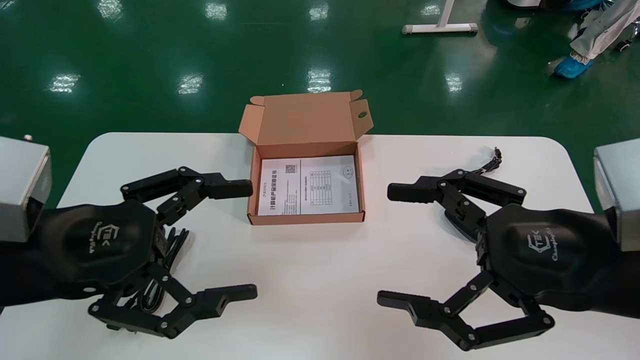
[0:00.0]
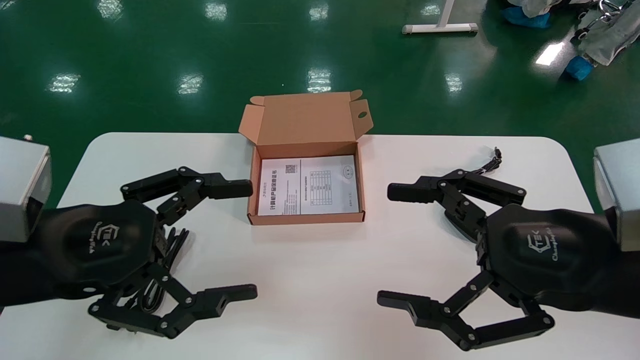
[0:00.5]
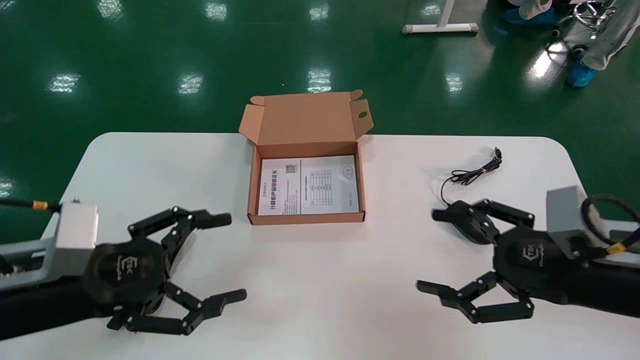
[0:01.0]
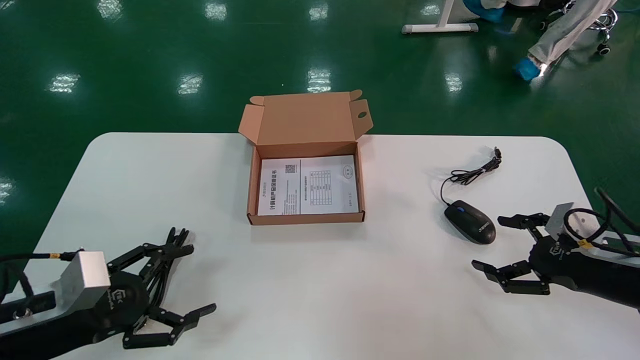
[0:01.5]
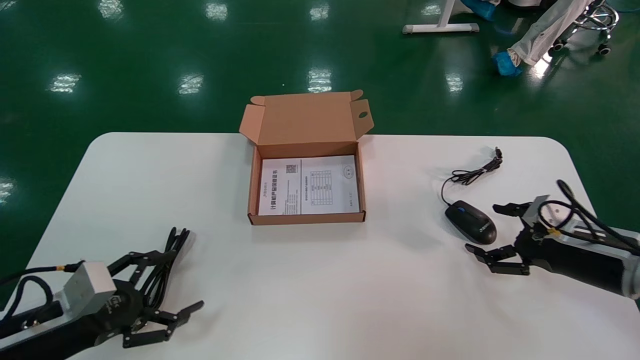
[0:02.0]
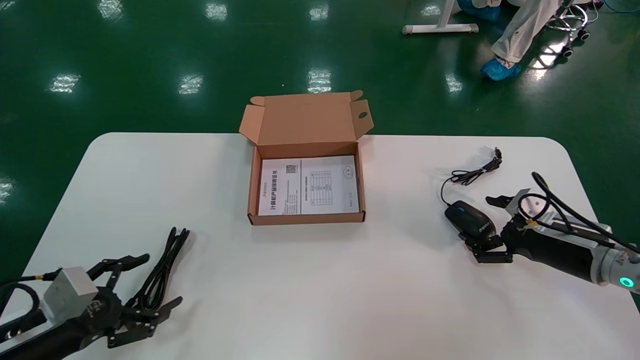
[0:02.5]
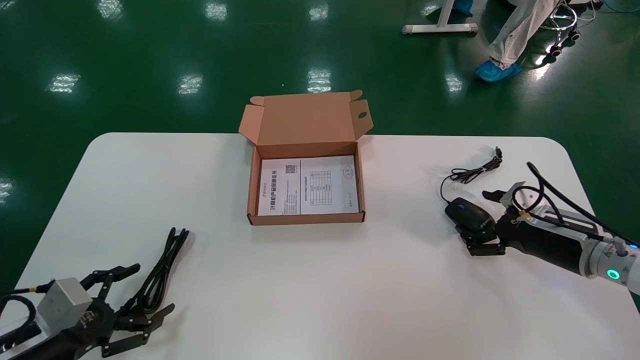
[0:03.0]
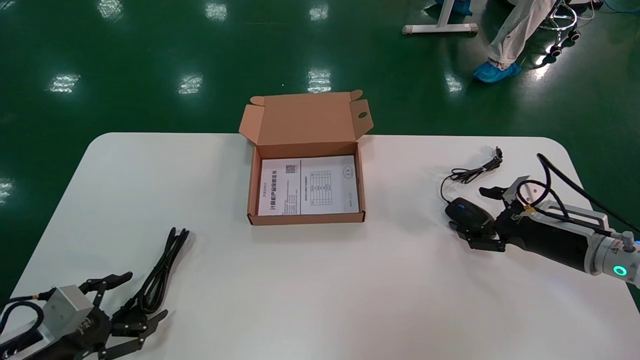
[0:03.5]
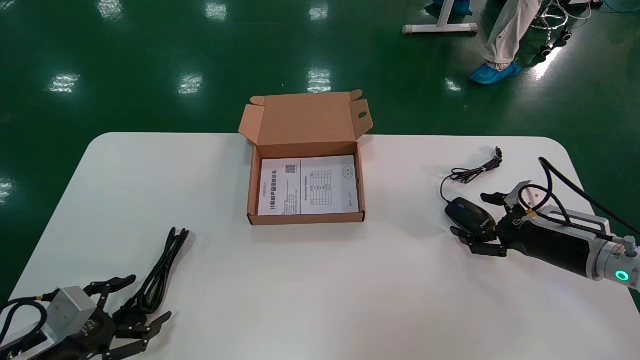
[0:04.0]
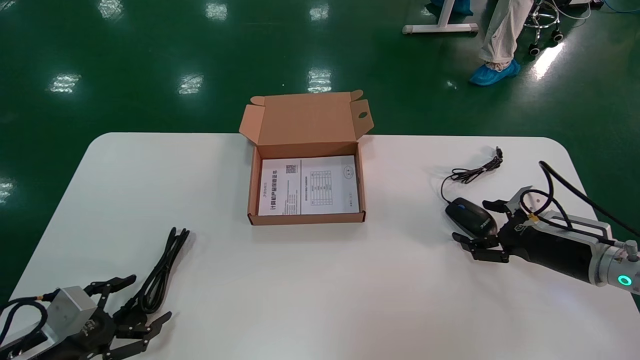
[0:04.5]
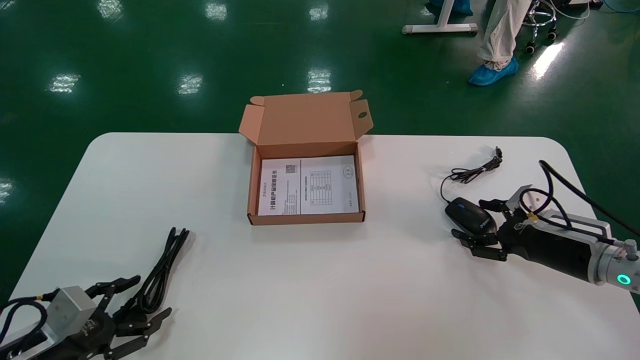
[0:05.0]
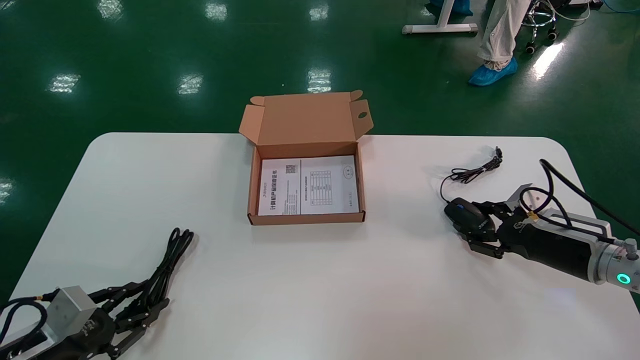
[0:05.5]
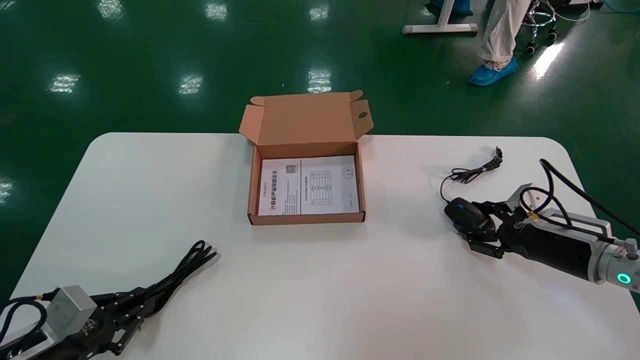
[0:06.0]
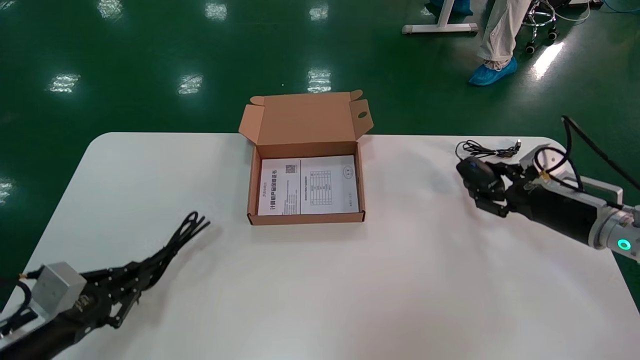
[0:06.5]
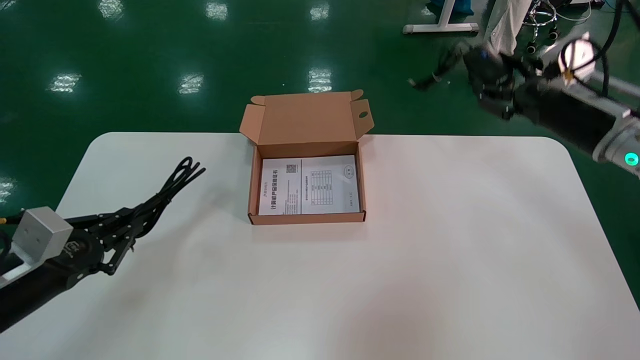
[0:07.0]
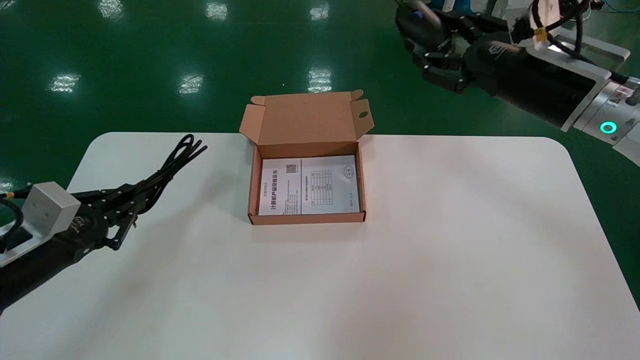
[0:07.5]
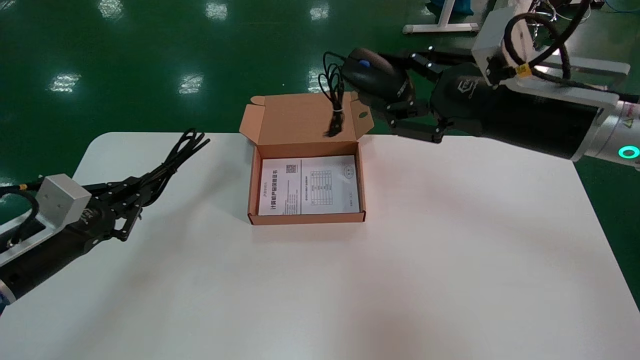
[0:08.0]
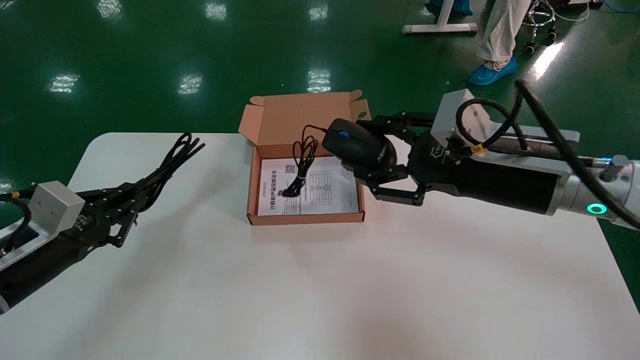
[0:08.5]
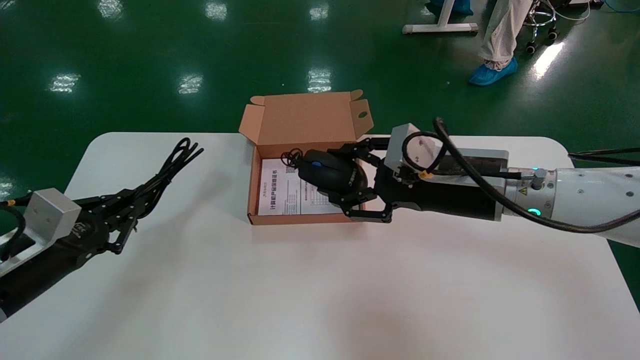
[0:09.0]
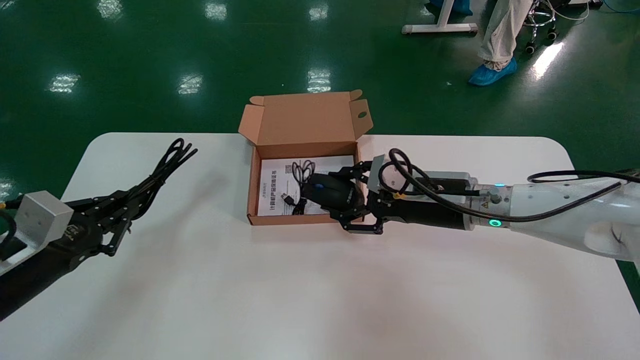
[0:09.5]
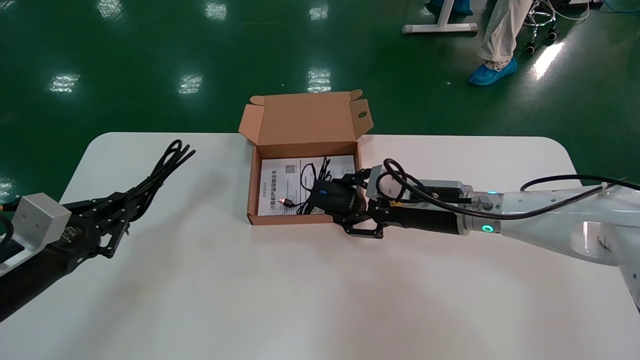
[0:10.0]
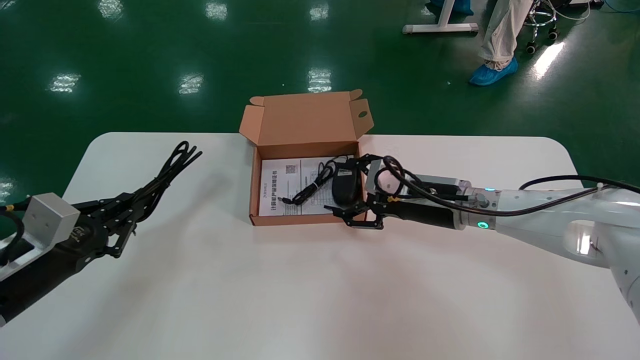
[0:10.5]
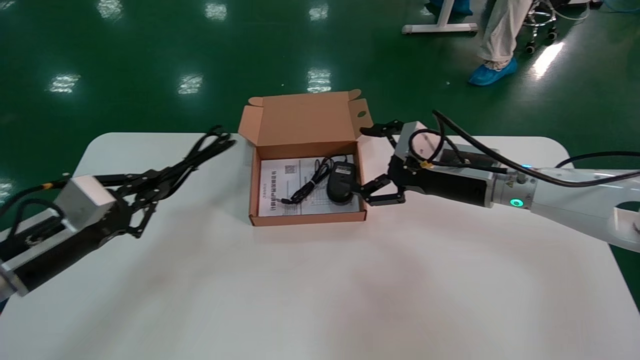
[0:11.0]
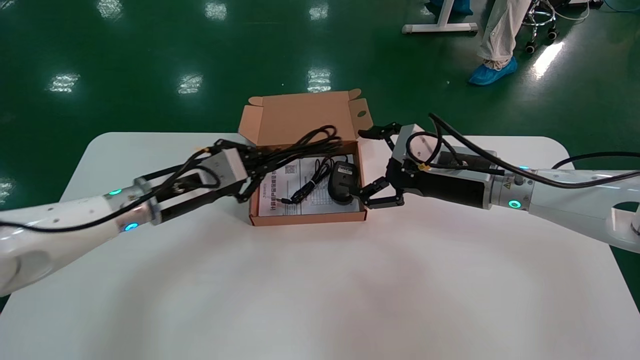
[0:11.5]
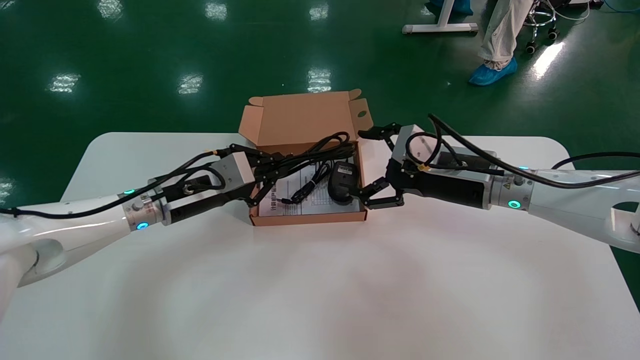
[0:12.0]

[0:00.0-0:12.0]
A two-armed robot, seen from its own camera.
Step, 0:01.5 to 0:05.5: Grab and pick up the mouse and power cord from the accessory packaging area.
0:00.0 to 0:02.0: The left gripper shifts roughly 20 cm downward and to the left; the right gripper heads forward, to the right and downward, covering approximately 25 cm.
0:02.0 to 0:04.0: The left gripper goes roughly 5 cm downward.
0:04.0 to 0:06.0: The right gripper closes. The left gripper closes its fingers.
0:06.0 to 0:08.0: The right gripper travels upward and to the left by roughly 25 cm. Meanwhile the left gripper goes approximately 15 cm upward.
0:08.0 to 0:10.0: The right gripper heads downward, forward and to the left, covering approximately 20 cm.
0:10.0 to 0:12.0: The left gripper shifts some 20 cm to the right and forward, while the right gripper opens its fingers.

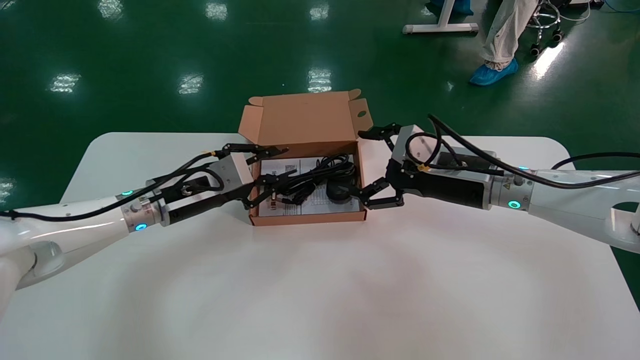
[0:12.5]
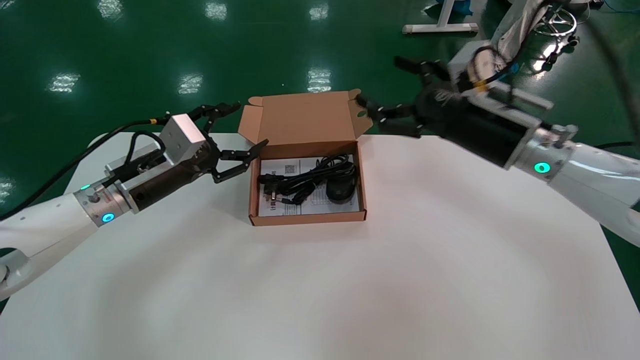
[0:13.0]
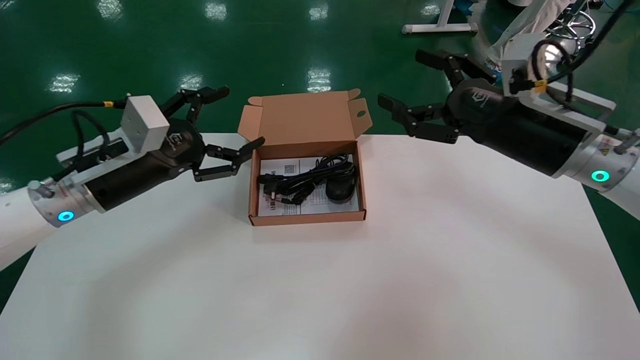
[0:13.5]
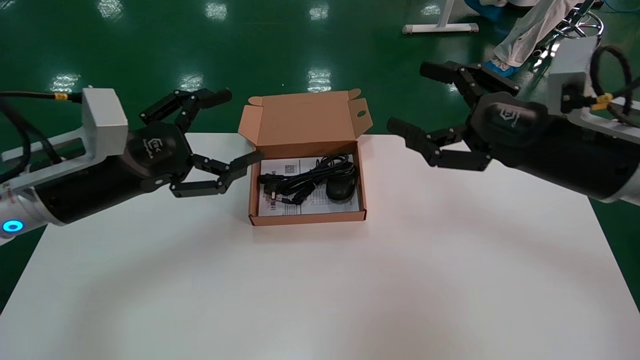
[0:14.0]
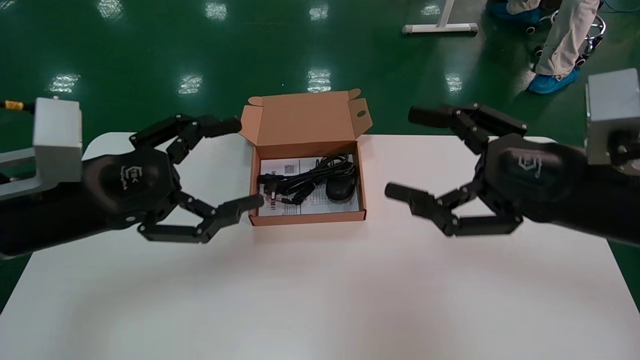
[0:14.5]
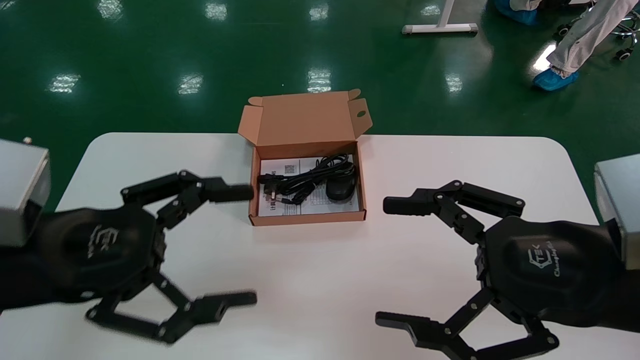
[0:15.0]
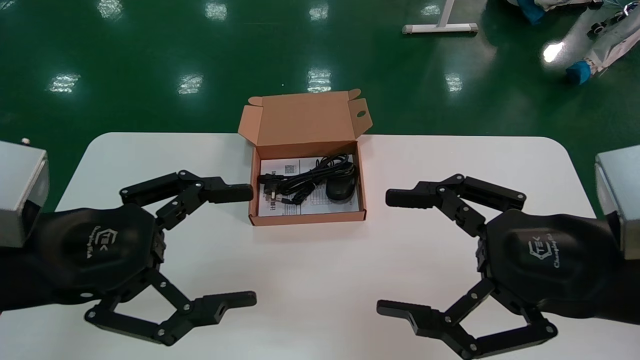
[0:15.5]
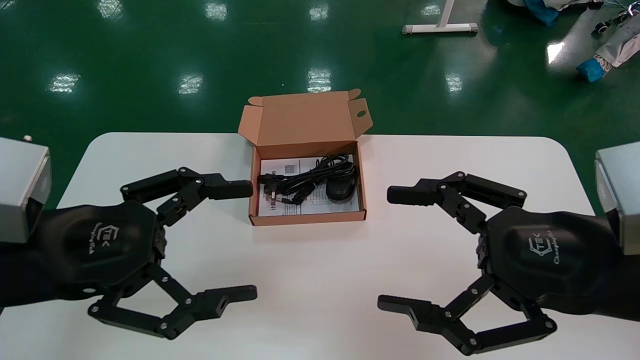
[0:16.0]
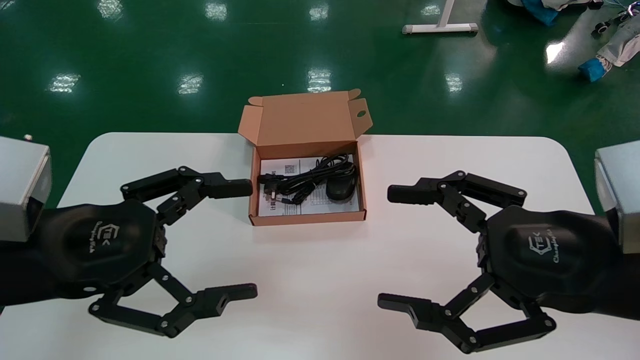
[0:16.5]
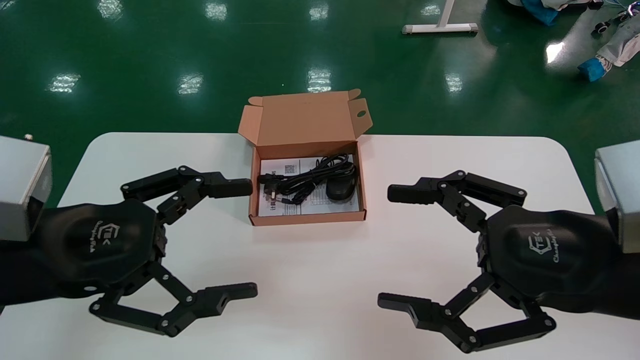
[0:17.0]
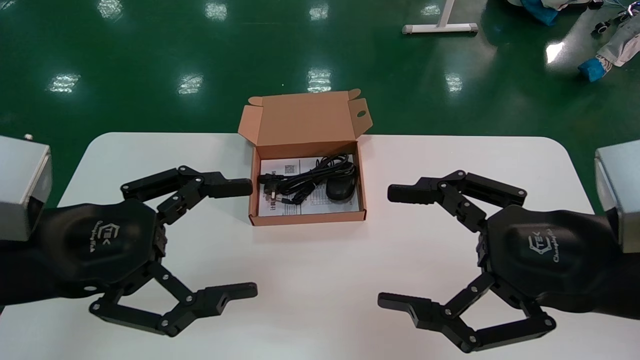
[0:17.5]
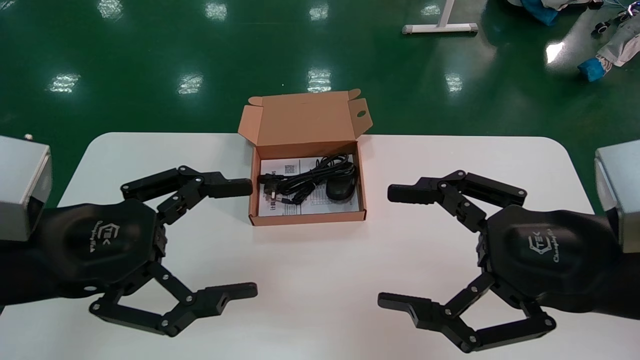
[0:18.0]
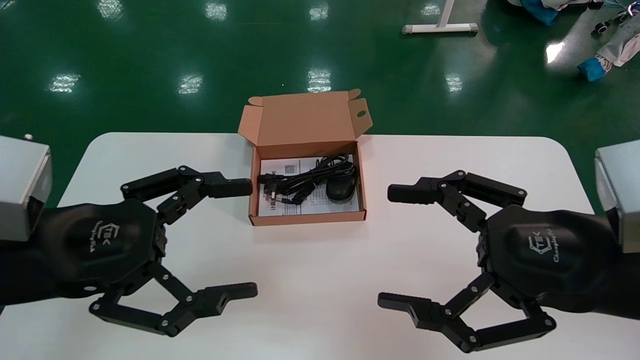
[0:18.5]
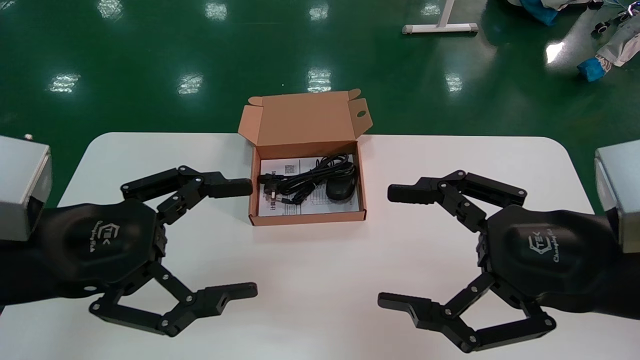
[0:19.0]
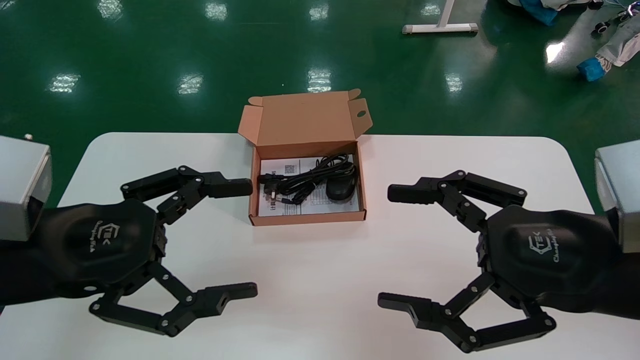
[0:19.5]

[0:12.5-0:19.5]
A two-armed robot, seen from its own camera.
0:12.5 to 0:14.5: Both grippers move backward, some 15 cm. The left gripper opens.
0:14.5 to 0:16.0: Both grippers travel together backward, approximately 5 cm.
0:16.0 to 0:19.5: The two grippers keep their place.
